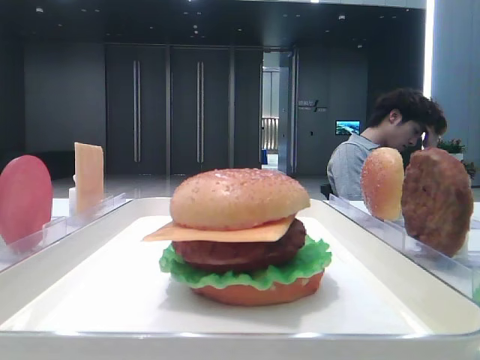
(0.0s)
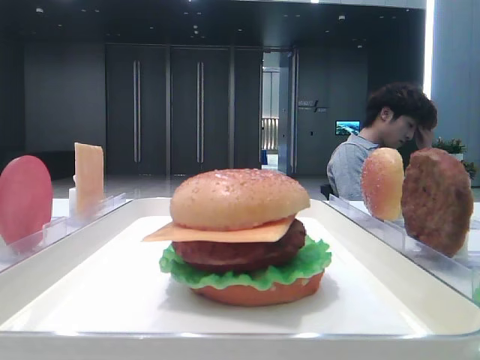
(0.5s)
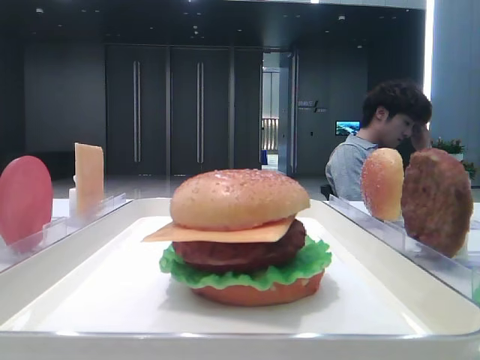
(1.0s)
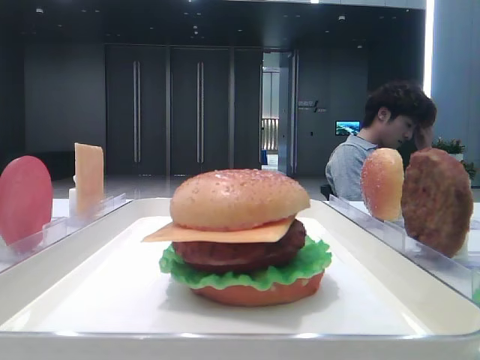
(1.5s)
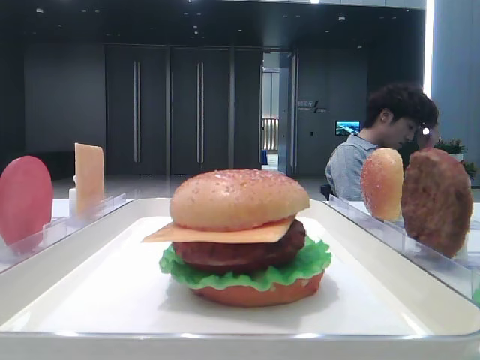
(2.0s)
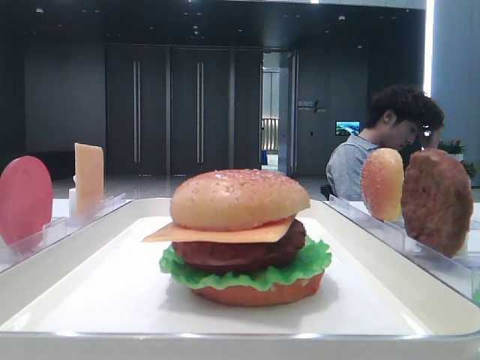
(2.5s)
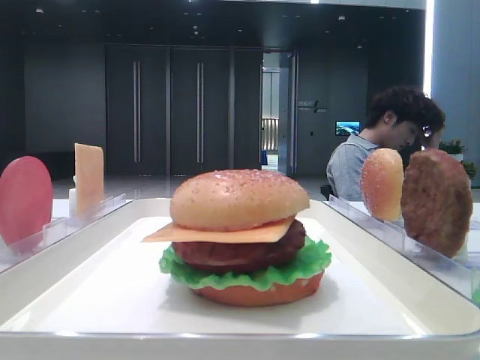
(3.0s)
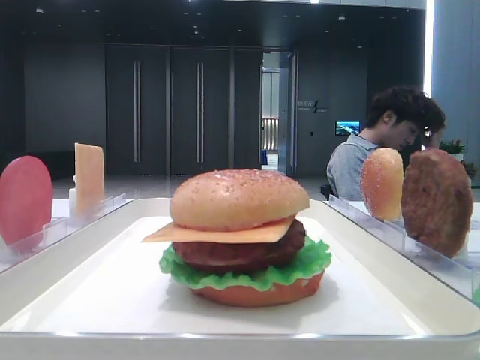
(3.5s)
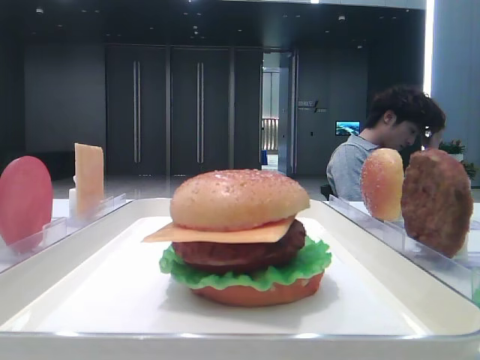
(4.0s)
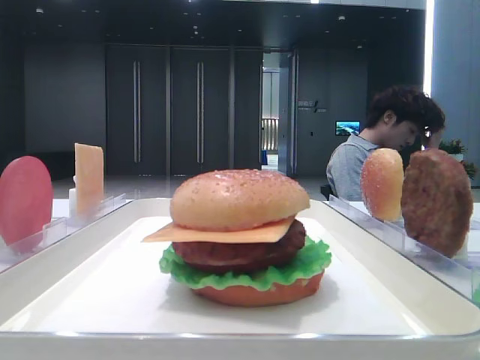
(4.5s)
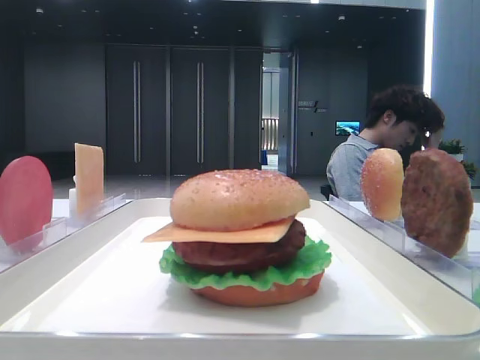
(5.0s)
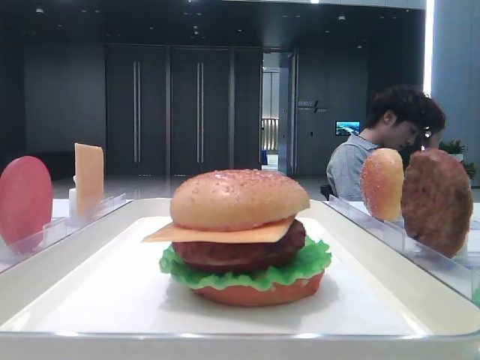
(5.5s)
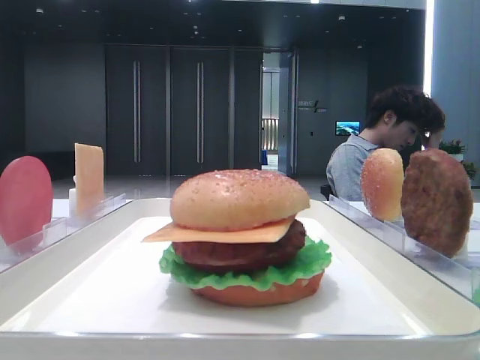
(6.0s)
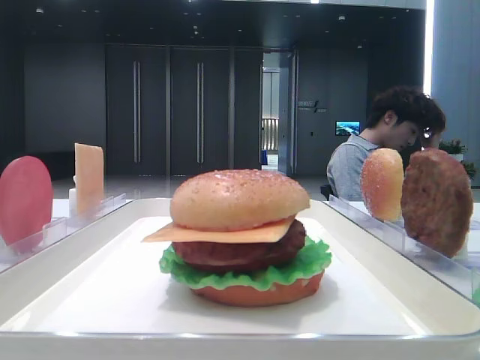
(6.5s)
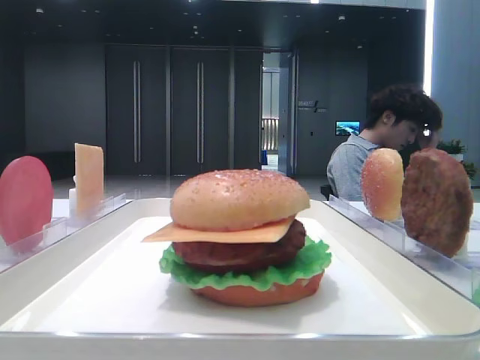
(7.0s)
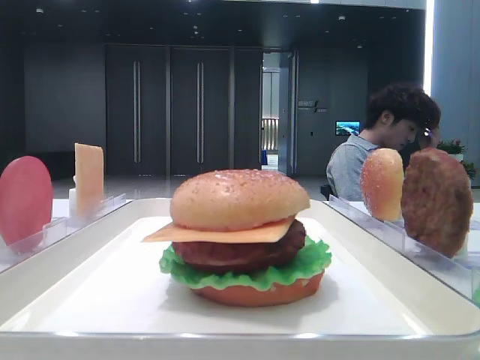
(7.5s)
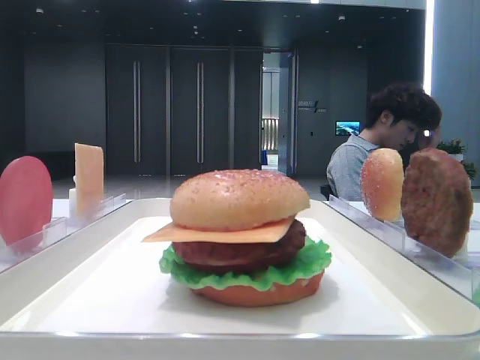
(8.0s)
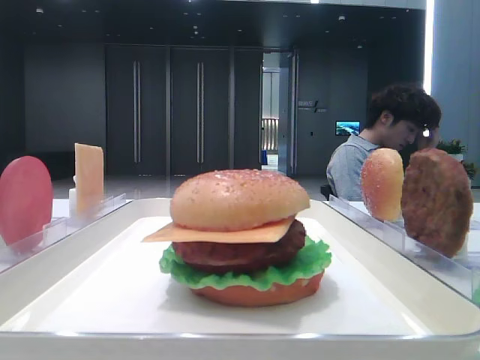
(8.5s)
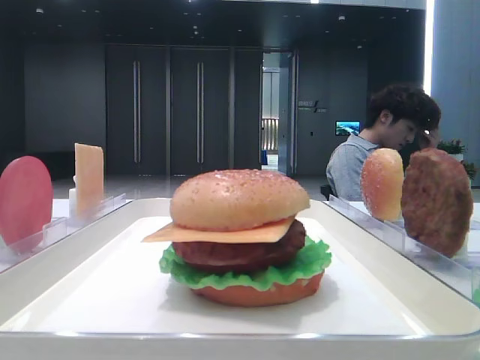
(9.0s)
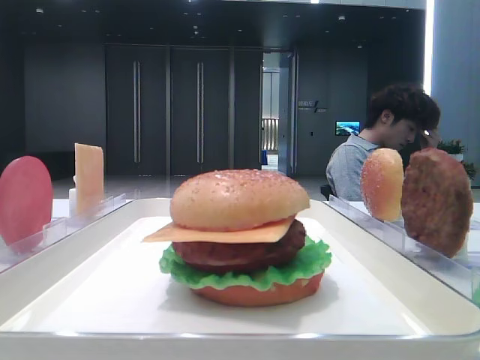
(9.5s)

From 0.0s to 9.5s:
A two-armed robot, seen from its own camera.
From 0.0s to 2.0s: The right gripper is displaced backward by approximately 30 cm.
From 7.5s to 9.5s: Both grippers stay put.

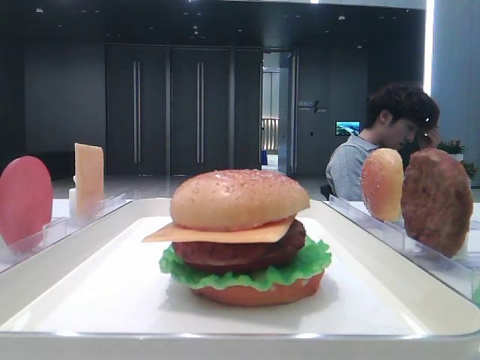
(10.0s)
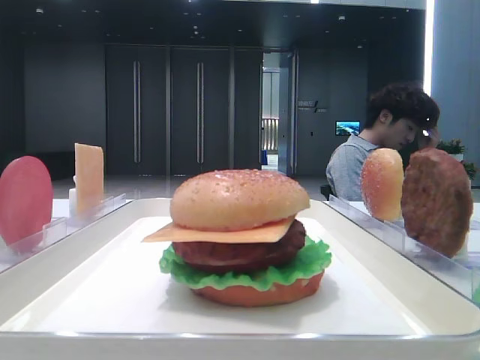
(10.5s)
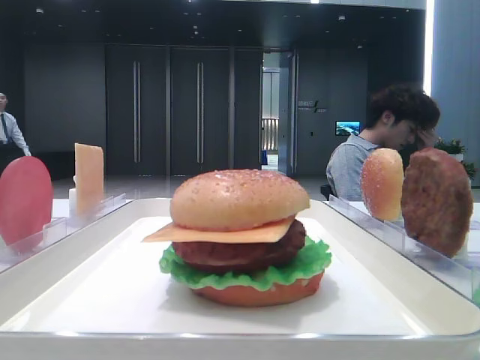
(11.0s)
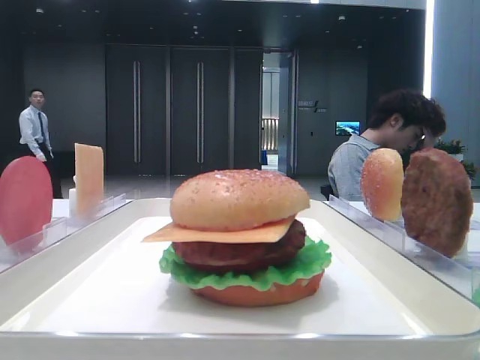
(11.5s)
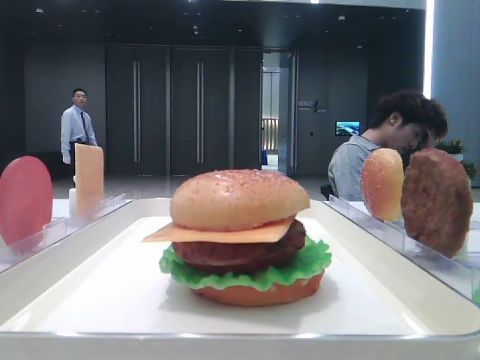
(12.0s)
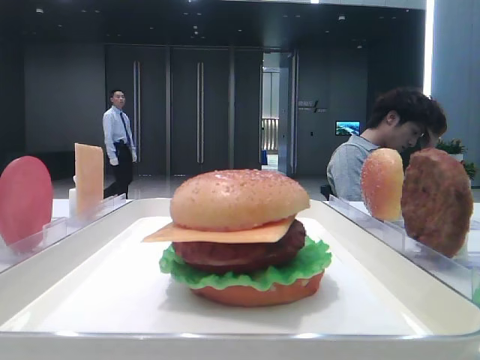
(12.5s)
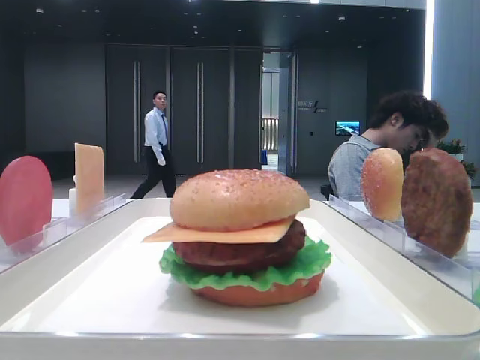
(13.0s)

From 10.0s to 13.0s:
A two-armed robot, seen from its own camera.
From 10.0s to 13.0s: Both grippers stay put.
